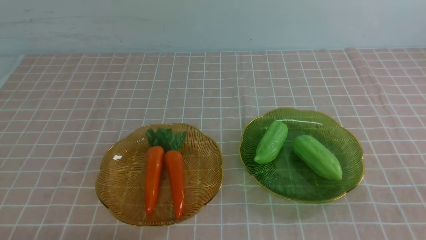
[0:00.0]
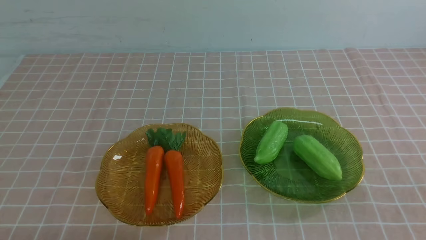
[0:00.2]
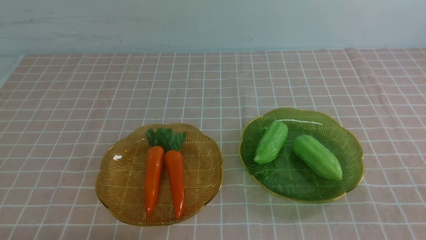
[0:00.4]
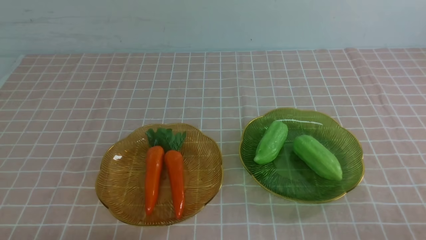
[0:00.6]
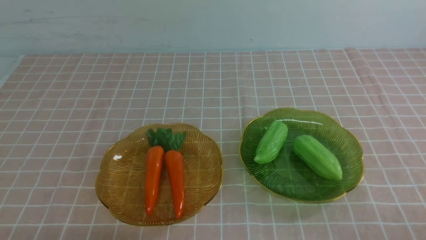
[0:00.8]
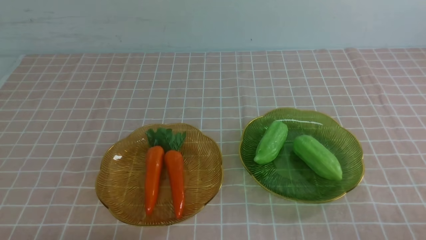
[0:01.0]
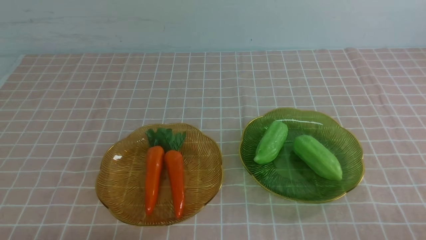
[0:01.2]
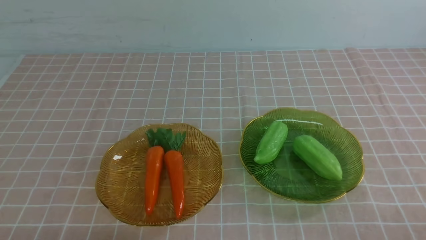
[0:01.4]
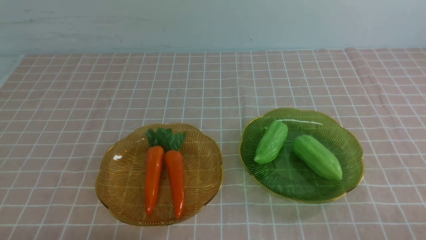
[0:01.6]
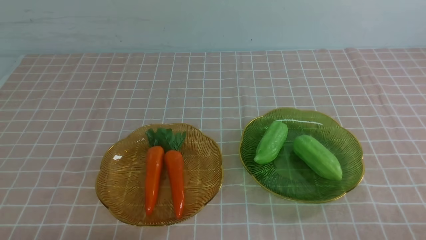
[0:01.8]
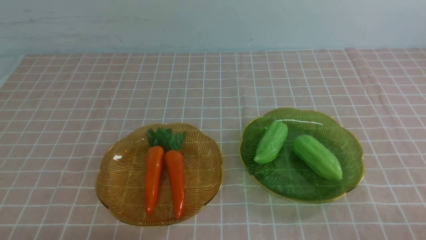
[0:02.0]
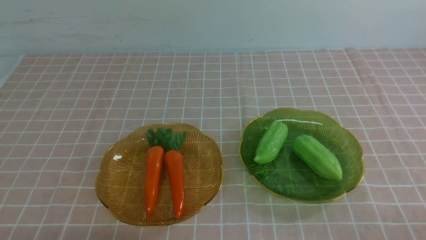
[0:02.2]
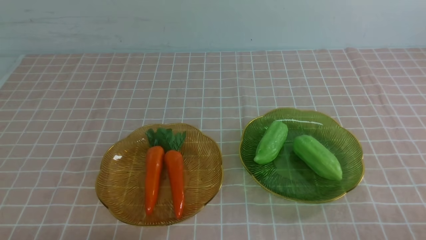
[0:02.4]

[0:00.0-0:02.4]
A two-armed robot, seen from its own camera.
0:01.2 to 0:02.4: Neither gripper changes place.
